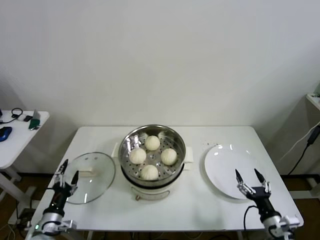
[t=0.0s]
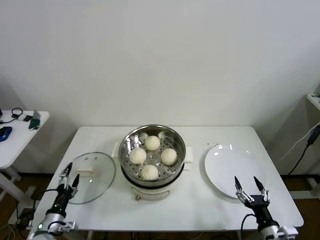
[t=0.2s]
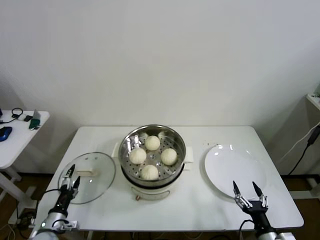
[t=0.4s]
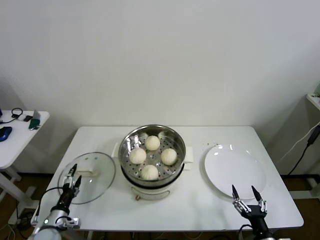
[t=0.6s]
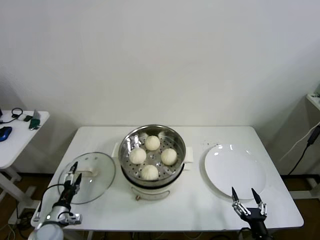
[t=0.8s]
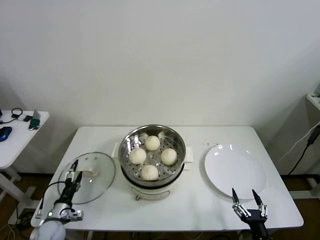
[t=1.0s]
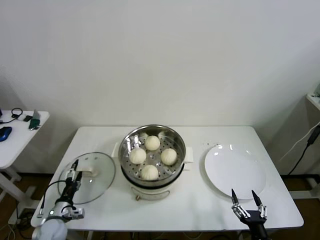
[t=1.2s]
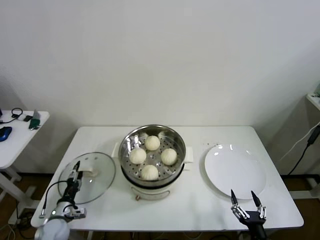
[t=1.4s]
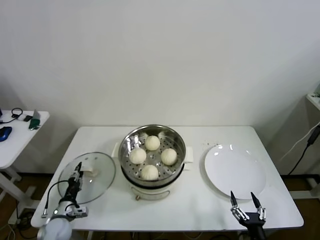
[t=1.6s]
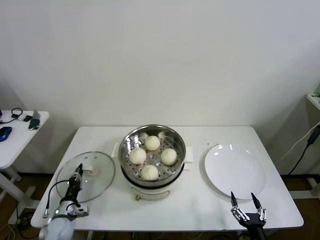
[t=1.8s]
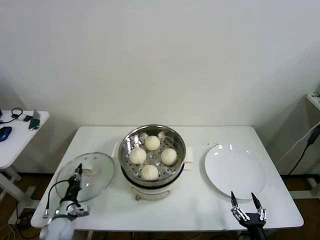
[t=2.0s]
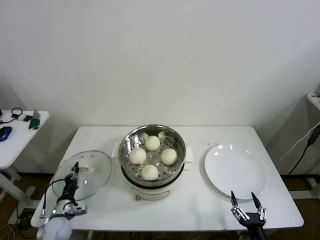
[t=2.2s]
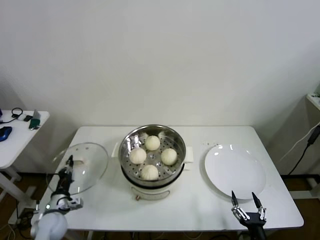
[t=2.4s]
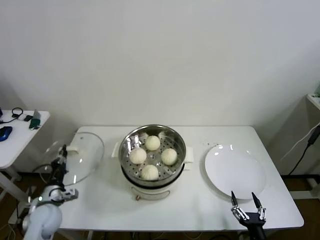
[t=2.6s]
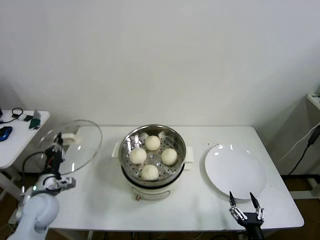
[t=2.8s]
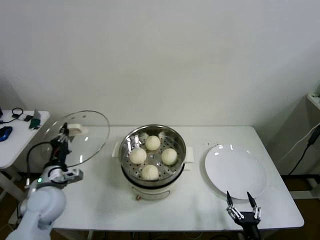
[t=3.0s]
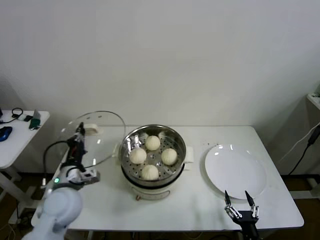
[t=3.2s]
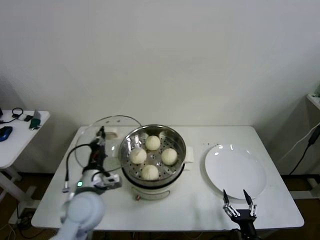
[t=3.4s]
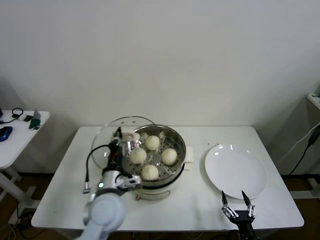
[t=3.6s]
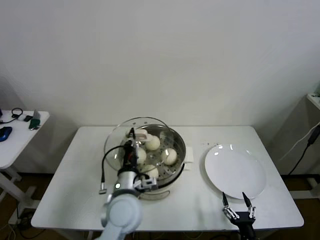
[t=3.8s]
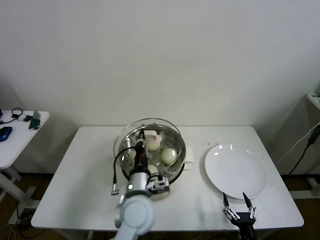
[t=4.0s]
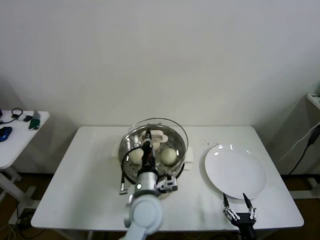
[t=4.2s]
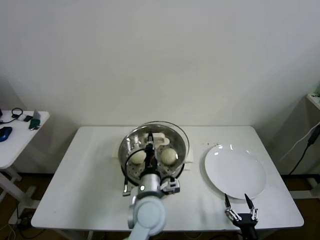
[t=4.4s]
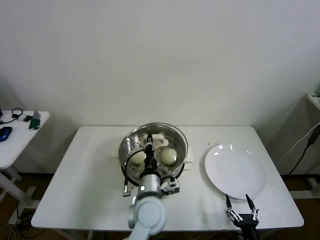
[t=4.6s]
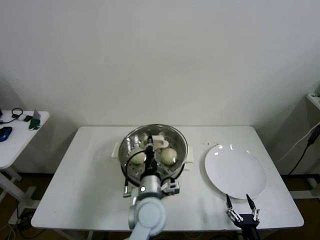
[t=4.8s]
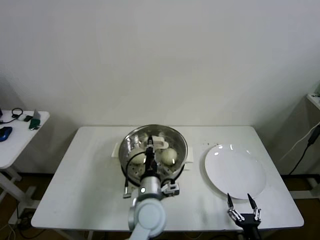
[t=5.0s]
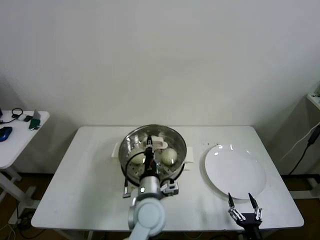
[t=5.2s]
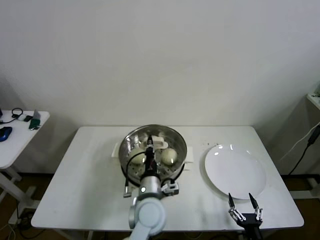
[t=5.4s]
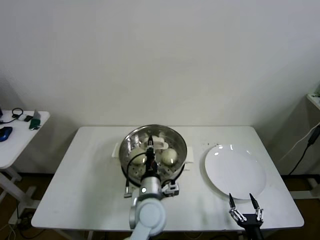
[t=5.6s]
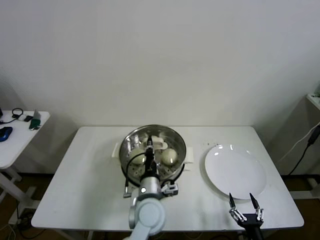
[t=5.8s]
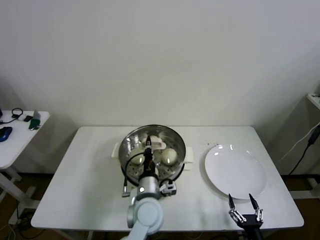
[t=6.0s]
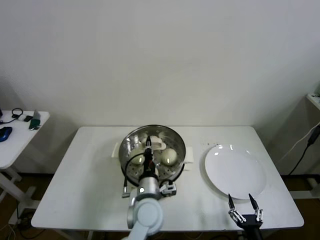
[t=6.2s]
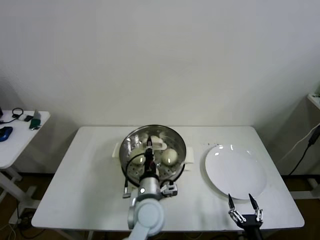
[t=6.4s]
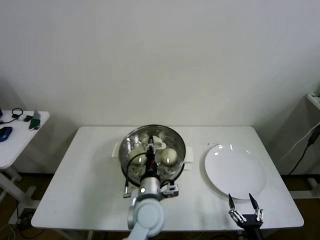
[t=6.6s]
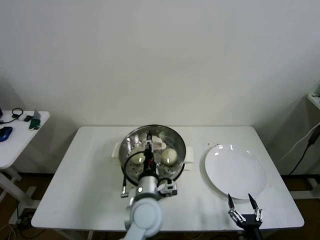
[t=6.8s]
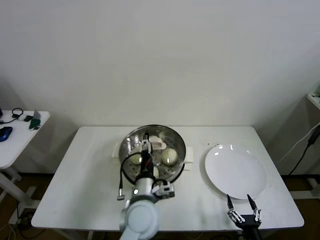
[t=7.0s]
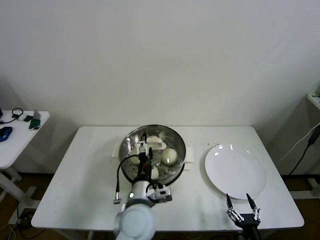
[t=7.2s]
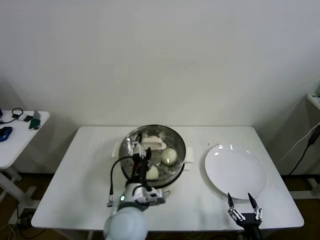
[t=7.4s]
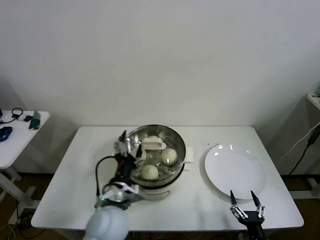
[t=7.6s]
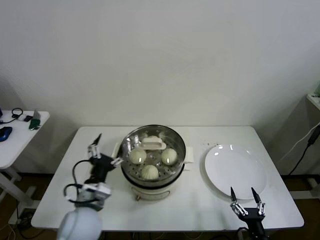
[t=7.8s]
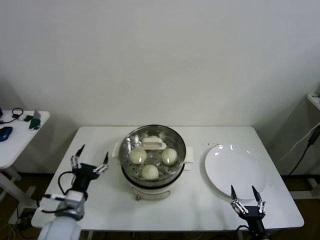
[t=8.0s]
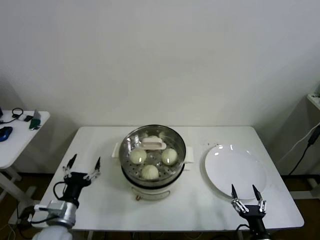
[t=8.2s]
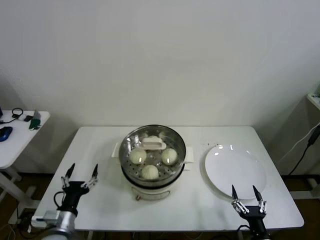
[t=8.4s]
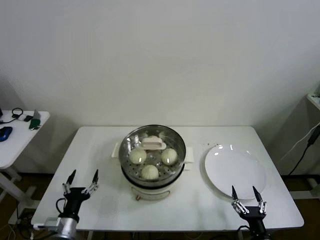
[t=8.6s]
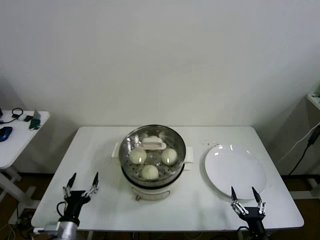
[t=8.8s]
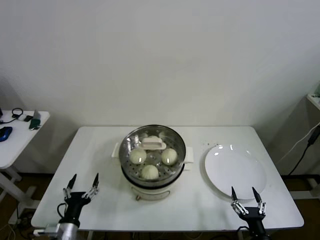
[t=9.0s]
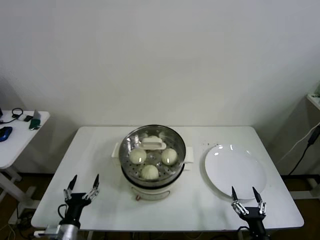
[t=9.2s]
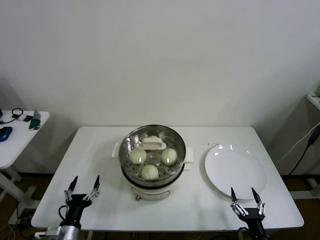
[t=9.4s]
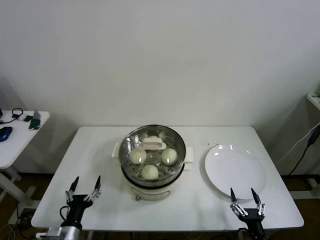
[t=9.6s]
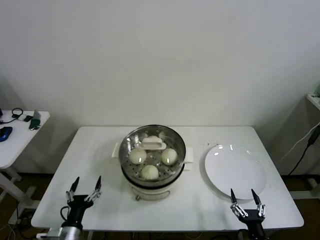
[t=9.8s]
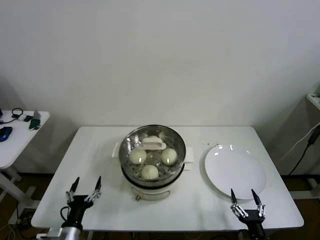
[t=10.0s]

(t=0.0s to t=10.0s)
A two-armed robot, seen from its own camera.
Step, t=2.0s - t=6.6s: Place the pot lid on the steamer with left gripper.
t=0.0s - t=1.4s: The left gripper travels downward and forward by about 10 cm. Meanwhile the right gripper moves backward and to the left, about 10 cm.
t=1.4s - t=2.8s: The left gripper travels upward by roughly 15 cm, and closes.
t=2.8s - t=4.2s: The left gripper moves to the right, roughly 35 cm.
t=4.2s - t=5.8s: The grippers stay close to where they were, moving slightly.
t=5.8s - t=7.2s: The left gripper opens.
t=7.2s - t=8.6s: The left gripper goes roughly 30 cm to the left and downward.
t=8.6s - t=10.0s: The grippers make only small movements.

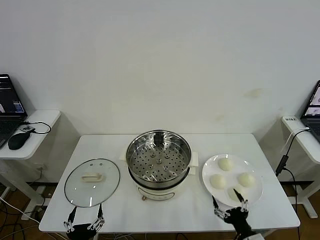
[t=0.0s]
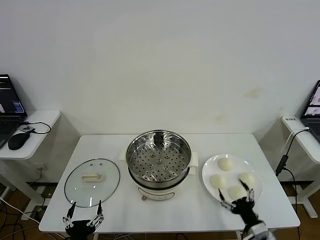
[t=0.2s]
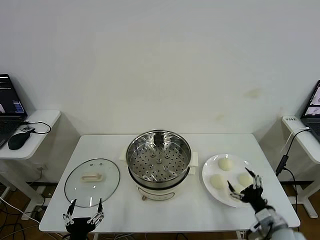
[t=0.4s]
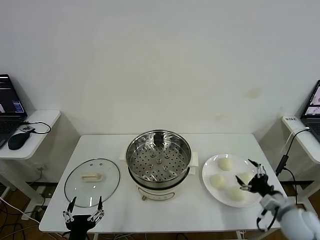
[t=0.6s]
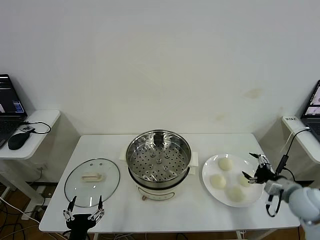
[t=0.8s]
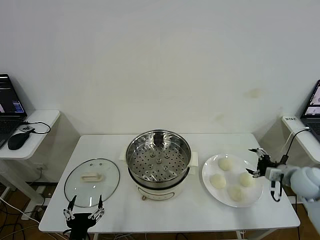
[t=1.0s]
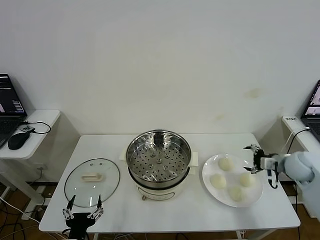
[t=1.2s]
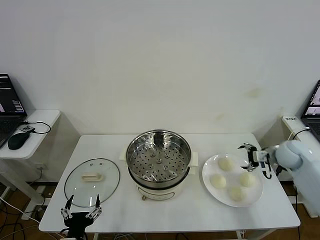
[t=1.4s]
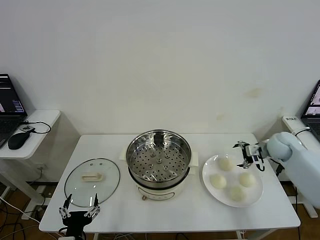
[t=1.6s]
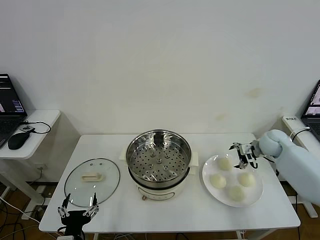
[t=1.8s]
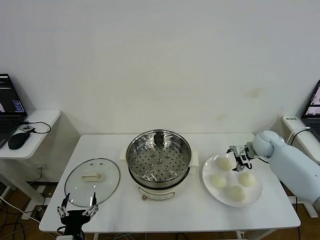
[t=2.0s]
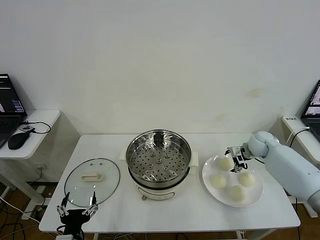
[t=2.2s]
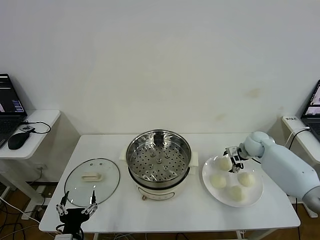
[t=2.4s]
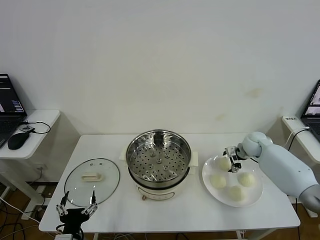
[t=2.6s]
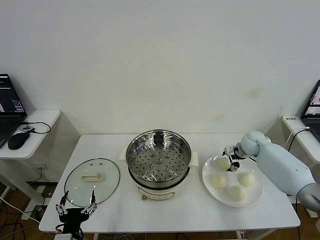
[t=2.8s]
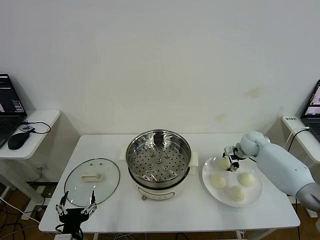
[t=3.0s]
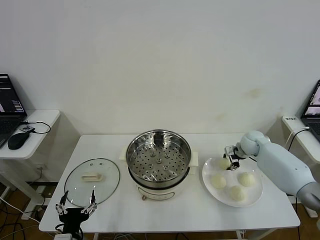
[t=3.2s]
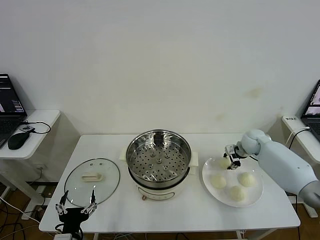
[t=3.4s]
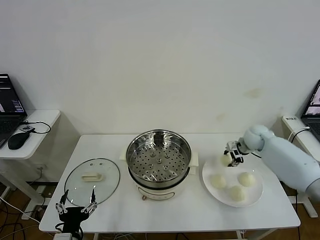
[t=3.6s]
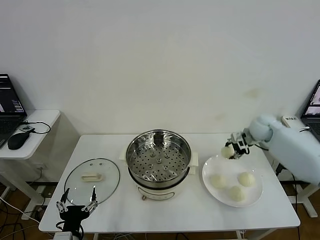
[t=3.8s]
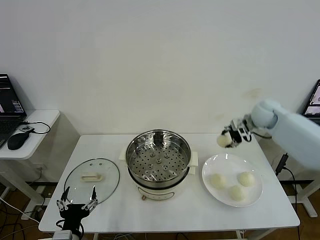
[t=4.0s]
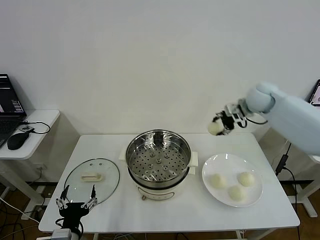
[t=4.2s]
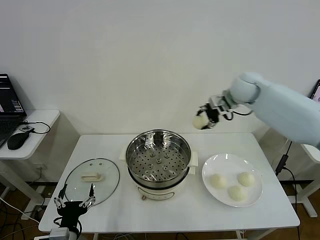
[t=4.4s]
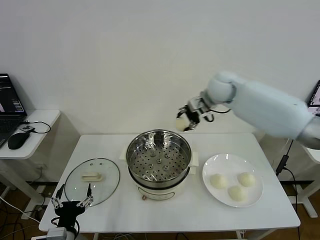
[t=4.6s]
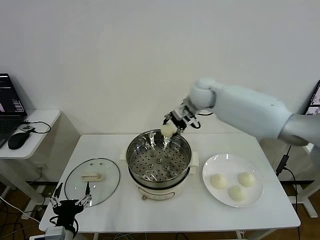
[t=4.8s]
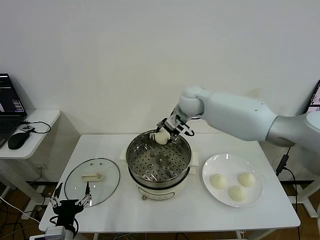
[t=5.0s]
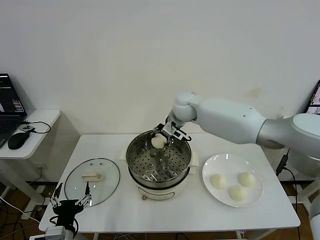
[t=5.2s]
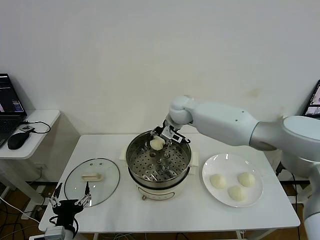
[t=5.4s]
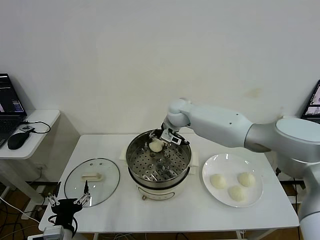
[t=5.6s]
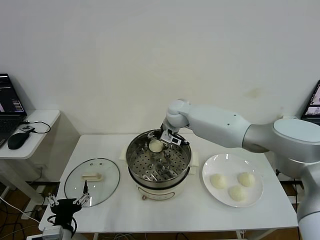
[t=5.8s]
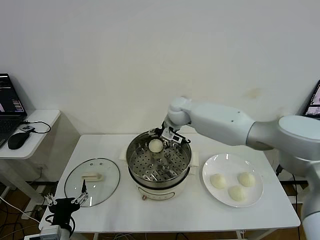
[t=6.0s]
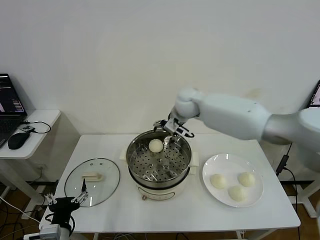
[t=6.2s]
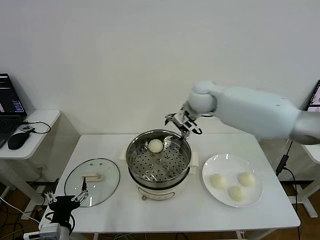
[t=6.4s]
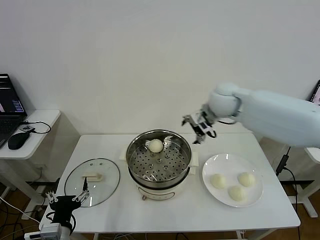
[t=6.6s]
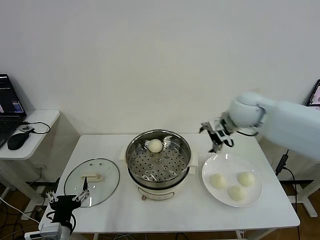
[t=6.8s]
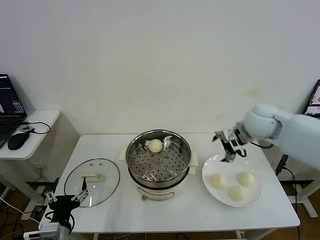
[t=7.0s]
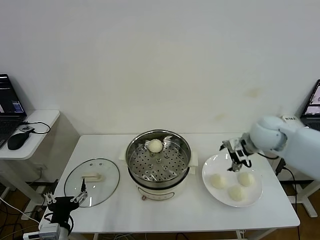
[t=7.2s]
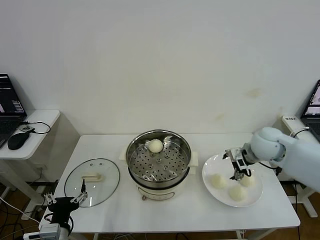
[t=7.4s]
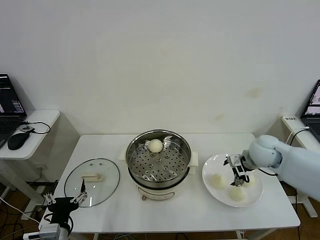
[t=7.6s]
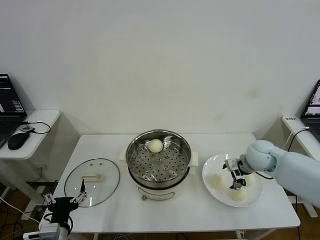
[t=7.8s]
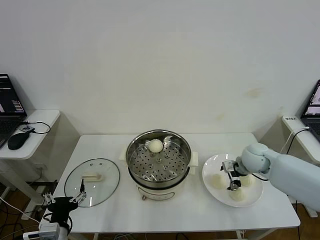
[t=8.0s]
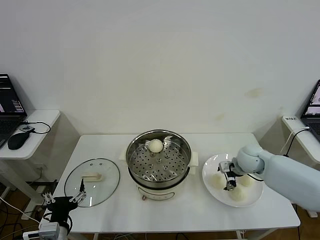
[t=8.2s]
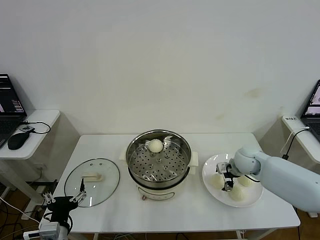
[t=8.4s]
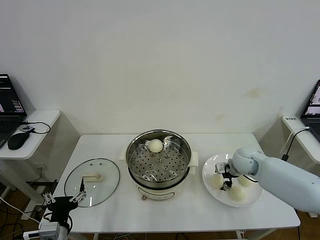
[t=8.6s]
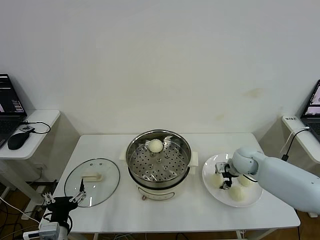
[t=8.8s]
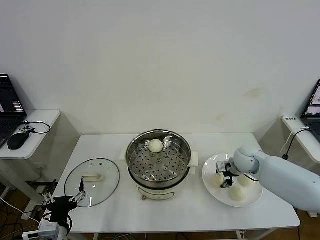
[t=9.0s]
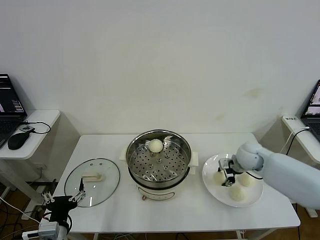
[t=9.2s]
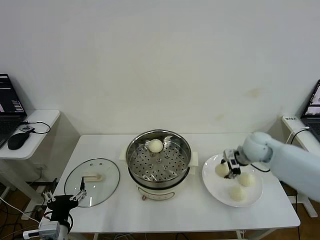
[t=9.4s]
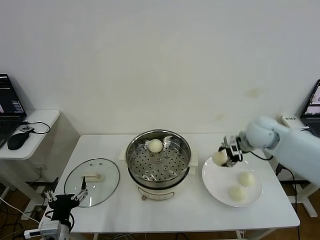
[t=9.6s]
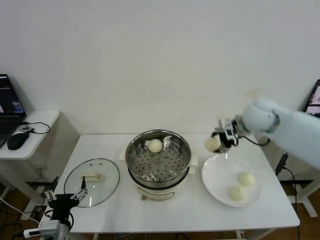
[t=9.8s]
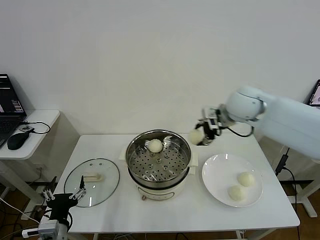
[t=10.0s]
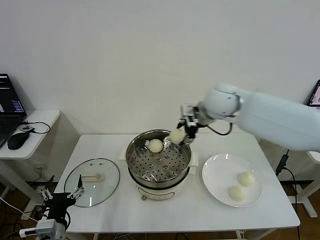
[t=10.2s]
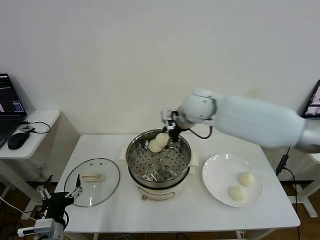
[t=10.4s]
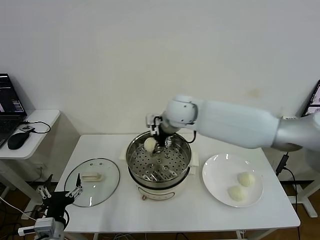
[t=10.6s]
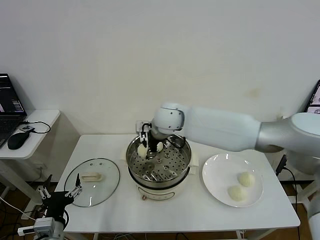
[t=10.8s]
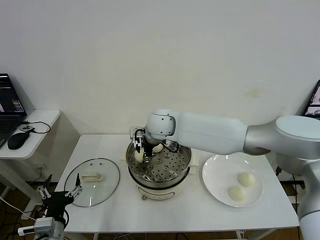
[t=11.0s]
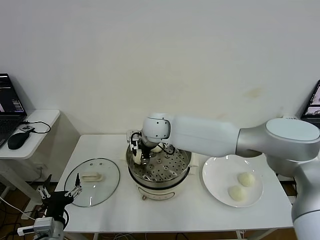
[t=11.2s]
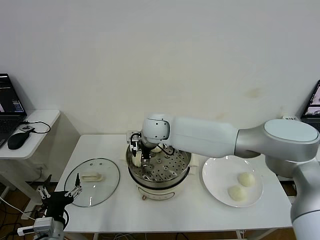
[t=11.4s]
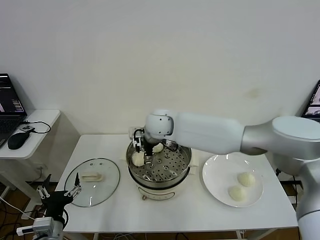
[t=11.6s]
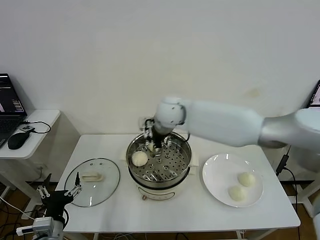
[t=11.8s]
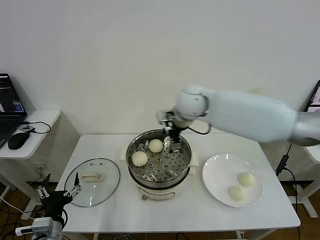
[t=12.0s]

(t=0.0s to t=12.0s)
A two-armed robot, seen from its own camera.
Step, t=0.0s - t=3.2s: Grasp the baozi in the plate with right gripper.
Step, t=3.4s - t=5.8s: Place the baozi on the steamer with right gripper.
Step, t=6.2s - t=8.8s: Grasp the baozi in the plate with right gripper.
Step, t=9.2s - t=11.6s: Place the baozi on the steamer with right gripper.
t=1.6s - t=3.0s: The right gripper ends up roughly 10 cm from where it was, and closes up.
t=3.0s - t=4.4s: The right gripper heads upward and to the left, covering approximately 30 cm.
t=4.4s - t=6.0s: The right gripper travels to the left and downward by about 15 cm, and opens up.
t=6.0s - t=7.6s: The right gripper shifts roughly 30 cm to the right and backward.
t=7.6s - t=9.0s: The right gripper is displaced downward by roughly 5 cm, and closes.
t=9.0s - t=10.4s: The right gripper is displaced to the left and upward by about 30 cm.
t=10.4s - t=12.0s: The right gripper moves approximately 10 cm to the left and comes back, and opens its fingers.
